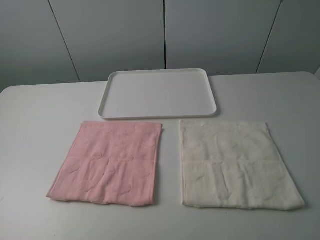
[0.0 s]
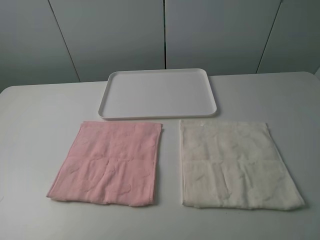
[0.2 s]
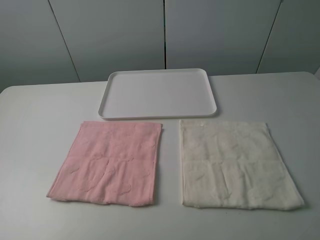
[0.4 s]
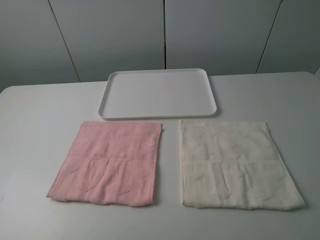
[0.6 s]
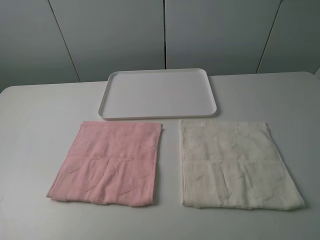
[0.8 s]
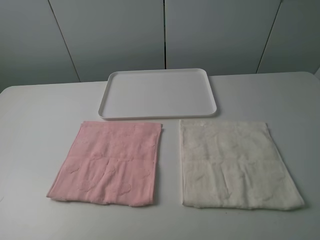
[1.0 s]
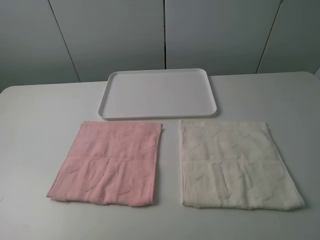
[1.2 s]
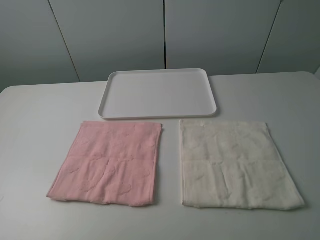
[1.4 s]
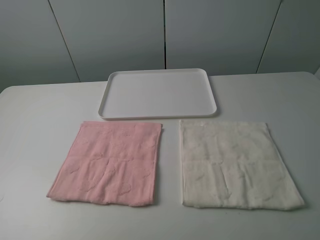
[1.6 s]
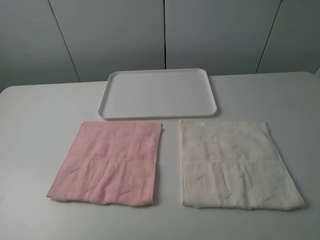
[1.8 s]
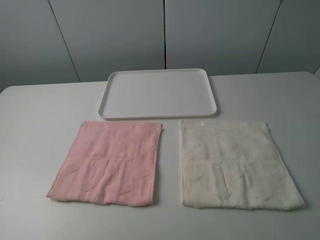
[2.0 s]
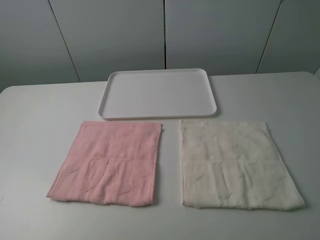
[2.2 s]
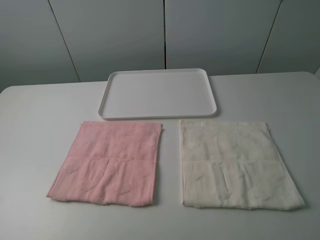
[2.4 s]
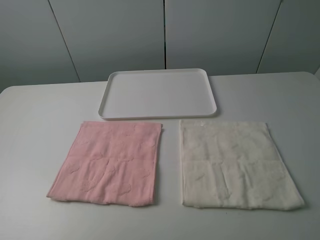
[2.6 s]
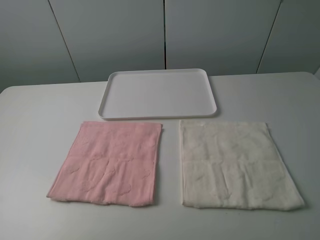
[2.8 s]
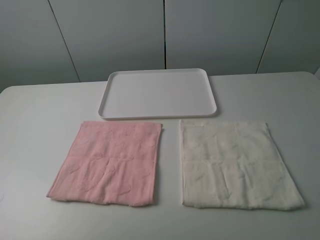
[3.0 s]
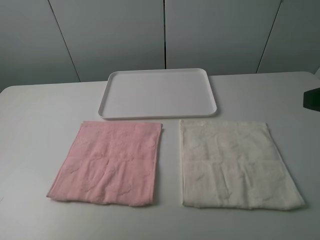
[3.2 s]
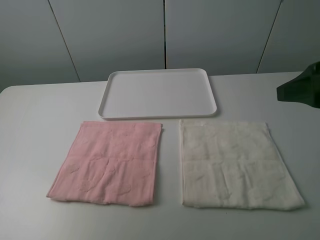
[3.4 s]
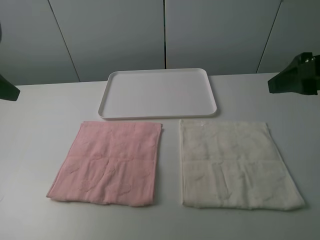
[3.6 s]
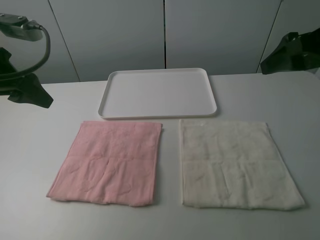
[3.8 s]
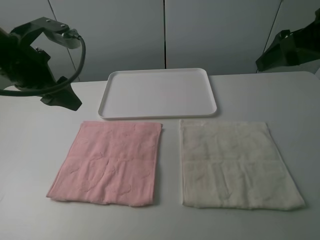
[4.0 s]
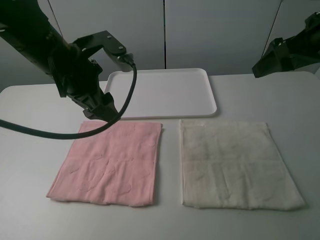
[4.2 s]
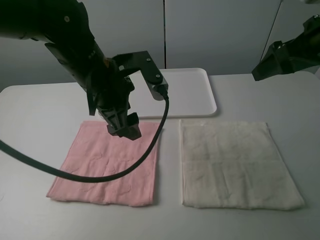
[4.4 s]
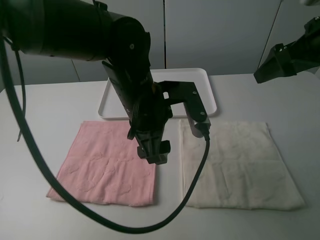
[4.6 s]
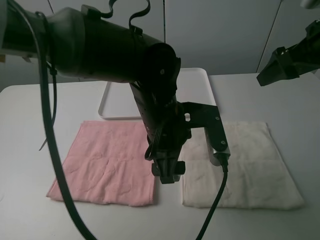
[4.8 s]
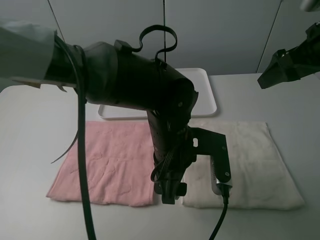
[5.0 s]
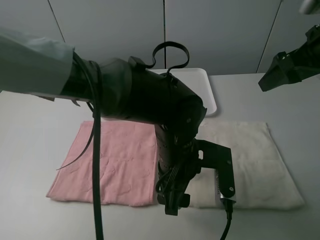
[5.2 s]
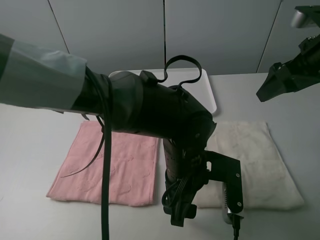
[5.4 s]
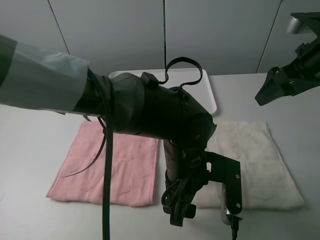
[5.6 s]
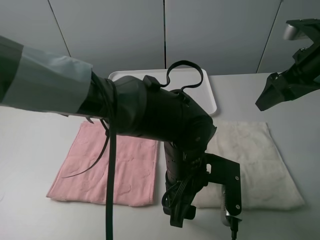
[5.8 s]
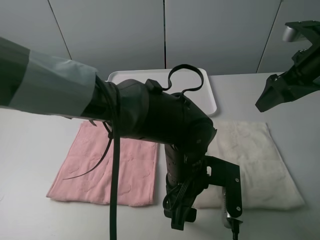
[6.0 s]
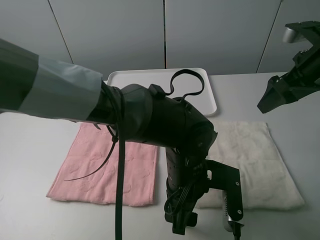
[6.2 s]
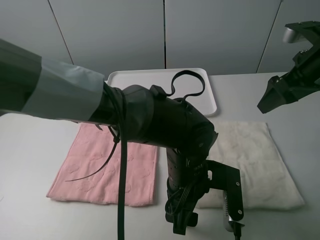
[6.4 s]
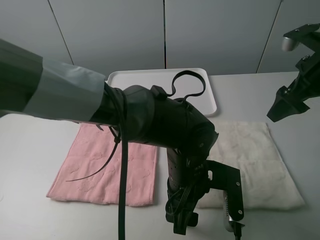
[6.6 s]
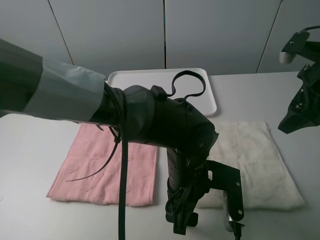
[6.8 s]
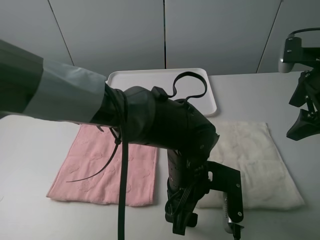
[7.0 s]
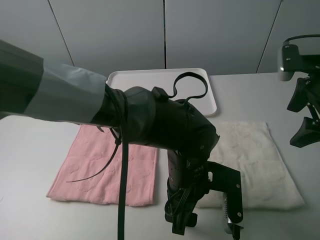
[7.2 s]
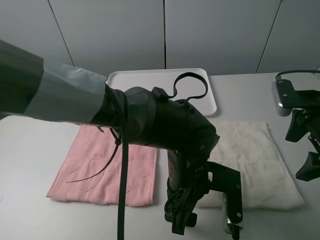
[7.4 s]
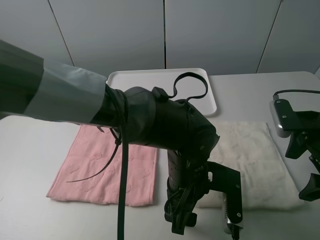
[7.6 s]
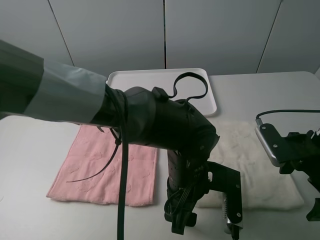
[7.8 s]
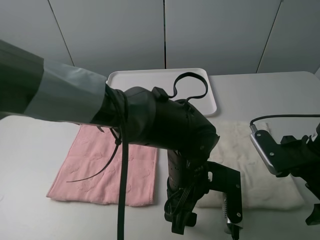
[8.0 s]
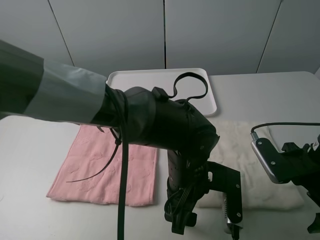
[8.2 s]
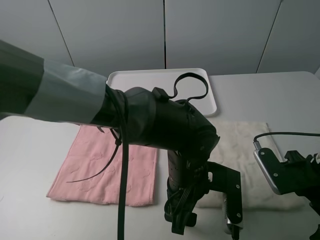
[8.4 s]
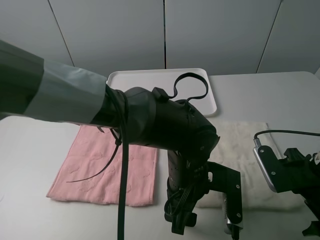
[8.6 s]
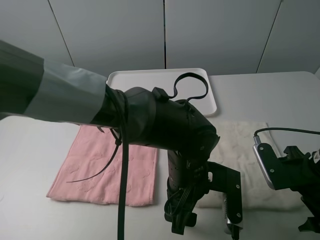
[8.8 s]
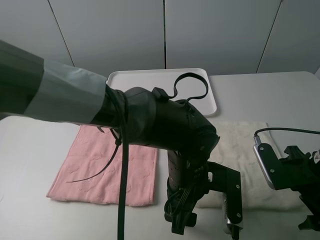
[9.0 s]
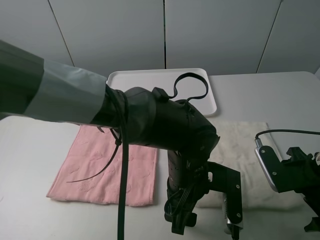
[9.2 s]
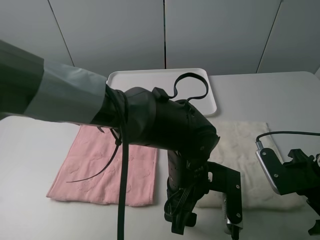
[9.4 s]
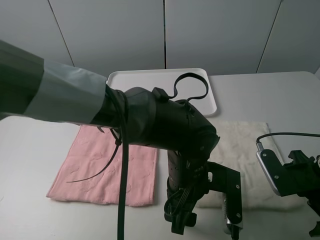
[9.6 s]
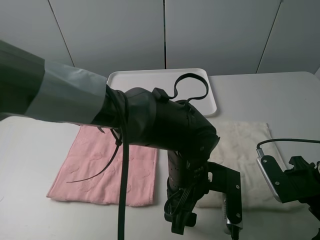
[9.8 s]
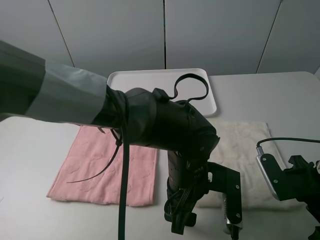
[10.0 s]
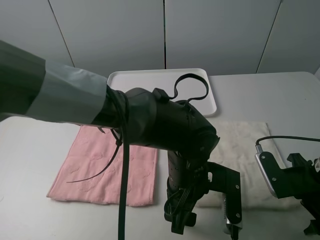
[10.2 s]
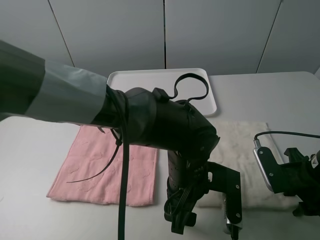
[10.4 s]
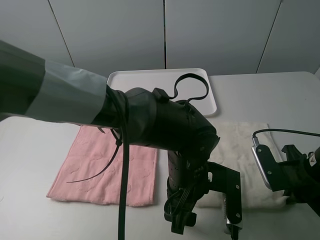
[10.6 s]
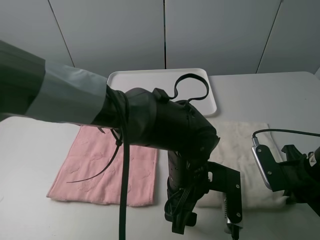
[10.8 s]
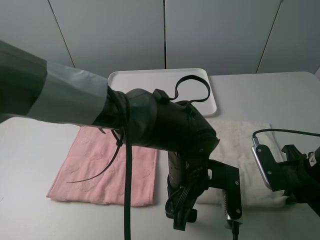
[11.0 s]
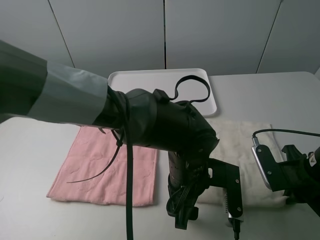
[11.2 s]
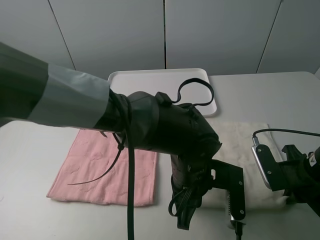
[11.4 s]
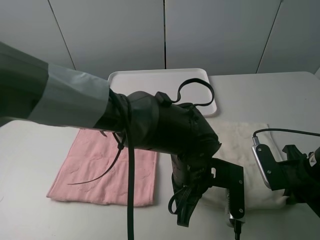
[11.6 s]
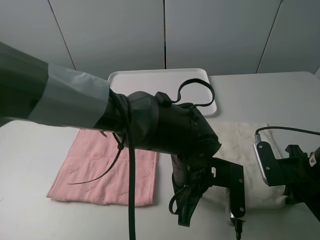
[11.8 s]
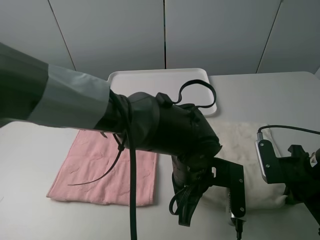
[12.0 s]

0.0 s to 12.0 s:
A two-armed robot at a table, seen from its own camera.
Task of the whole recording: fold one of the towels by two grippers and place it on the tray,then fold another towel by two grippers and place it on the folded towel.
Step, 0.0 to 11.6 s: Grasp the white towel with the left gripper.
0.0 to 1.6 s: Both grippers stay put.
3.0 to 4.4 s: The right gripper shifts some 20 cm forward; the left gripper goes roughly 30 cm to the right and forward.
4.4 to 6.0 s: The left gripper moves to the right, downward and backward, about 20 cm.
6.0 to 7.6 s: The right gripper is displaced downward and backward by some 10 cm.
7.6 to 9.0 s: The right gripper ends up some 5 cm from where it was.
9.0 to 10.4 s: The right gripper closes its fingers.
10.4 to 12.0 s: The left gripper closes its fingers; the right gripper closes its fingers.

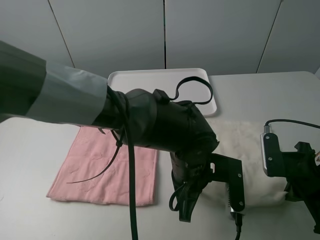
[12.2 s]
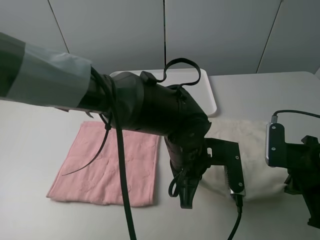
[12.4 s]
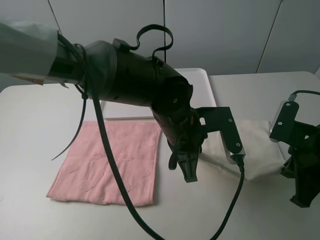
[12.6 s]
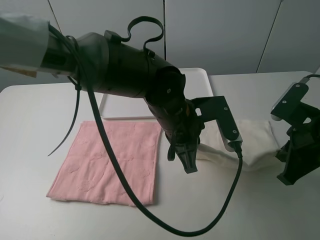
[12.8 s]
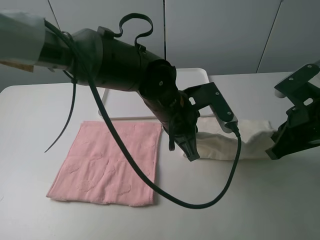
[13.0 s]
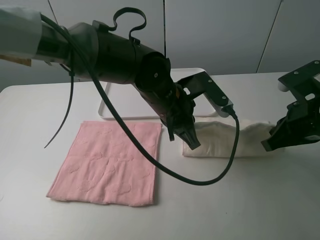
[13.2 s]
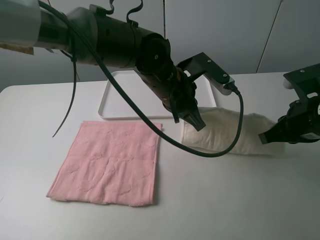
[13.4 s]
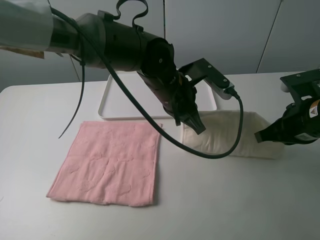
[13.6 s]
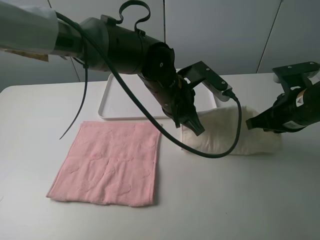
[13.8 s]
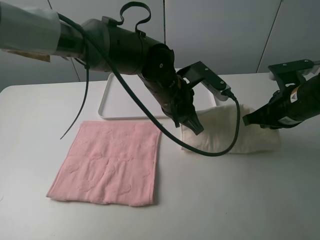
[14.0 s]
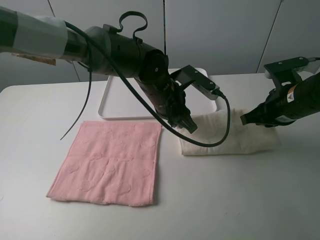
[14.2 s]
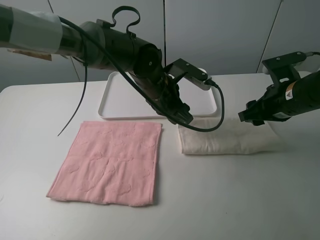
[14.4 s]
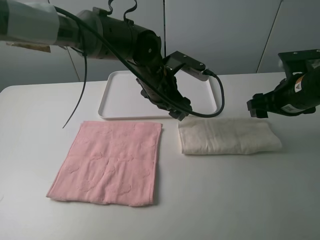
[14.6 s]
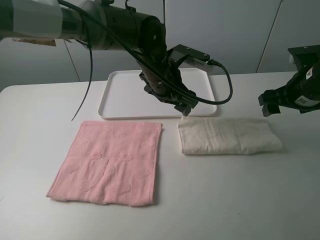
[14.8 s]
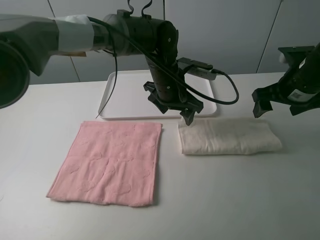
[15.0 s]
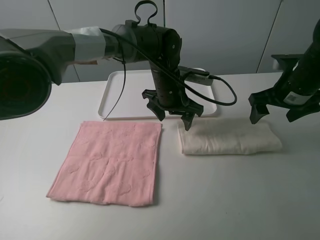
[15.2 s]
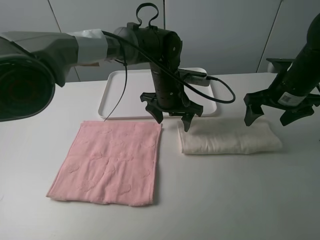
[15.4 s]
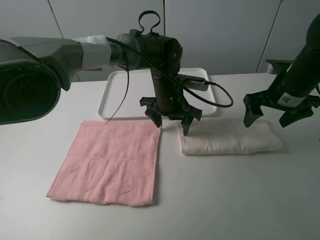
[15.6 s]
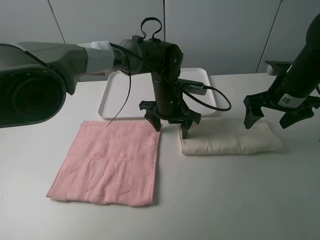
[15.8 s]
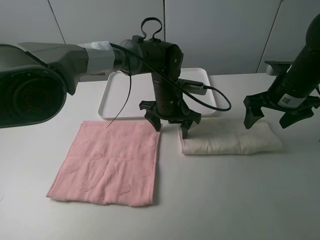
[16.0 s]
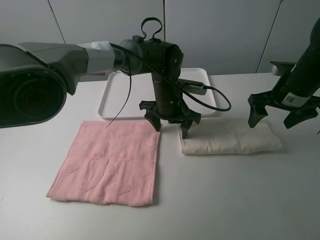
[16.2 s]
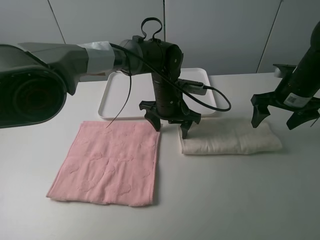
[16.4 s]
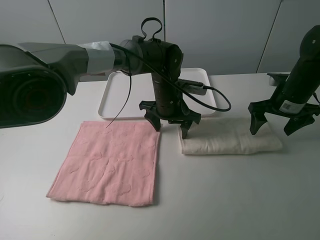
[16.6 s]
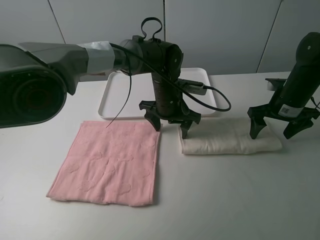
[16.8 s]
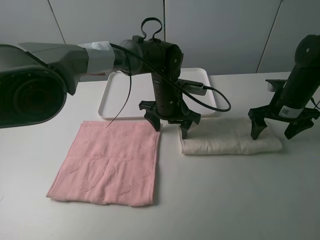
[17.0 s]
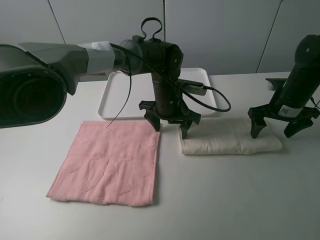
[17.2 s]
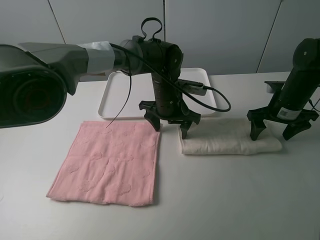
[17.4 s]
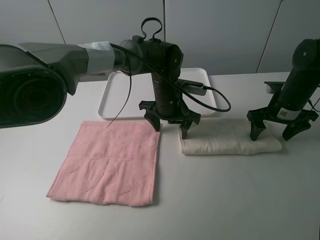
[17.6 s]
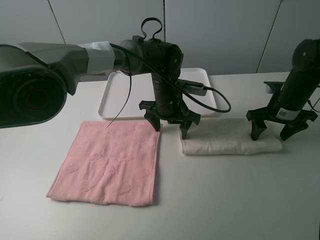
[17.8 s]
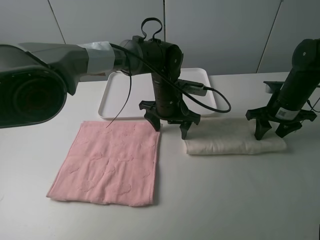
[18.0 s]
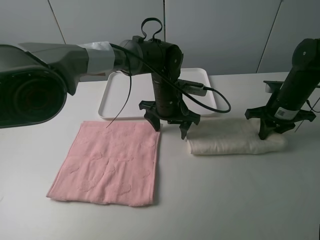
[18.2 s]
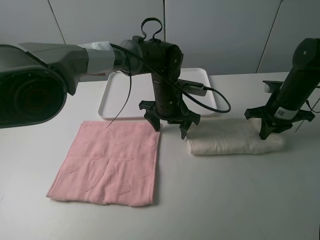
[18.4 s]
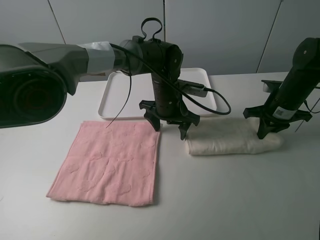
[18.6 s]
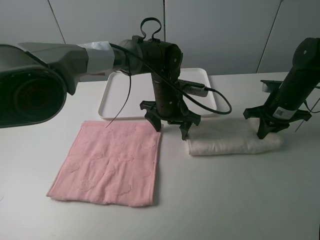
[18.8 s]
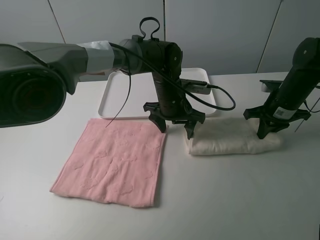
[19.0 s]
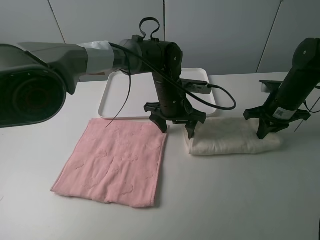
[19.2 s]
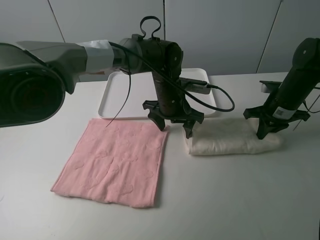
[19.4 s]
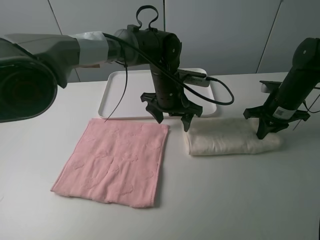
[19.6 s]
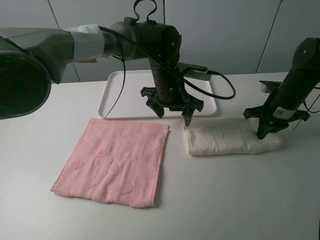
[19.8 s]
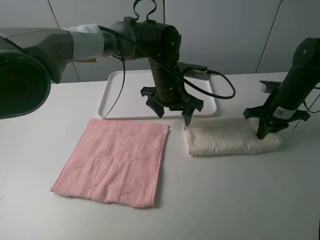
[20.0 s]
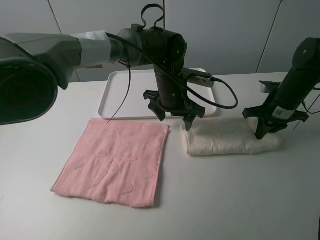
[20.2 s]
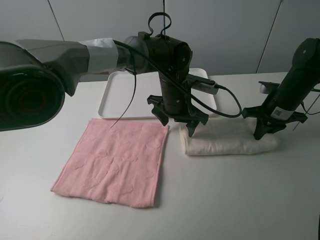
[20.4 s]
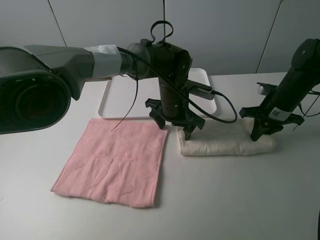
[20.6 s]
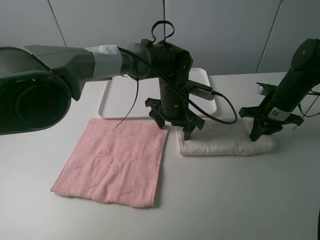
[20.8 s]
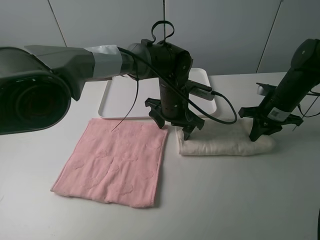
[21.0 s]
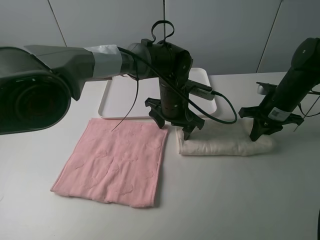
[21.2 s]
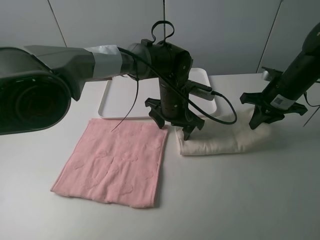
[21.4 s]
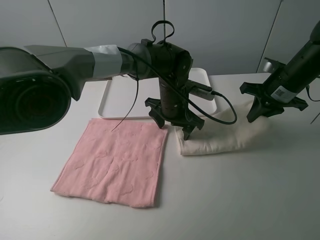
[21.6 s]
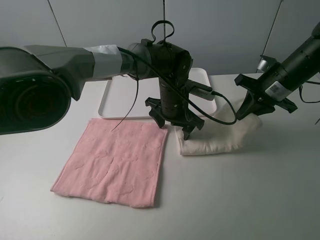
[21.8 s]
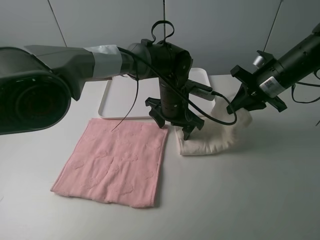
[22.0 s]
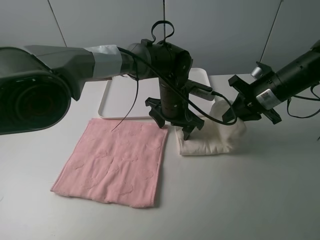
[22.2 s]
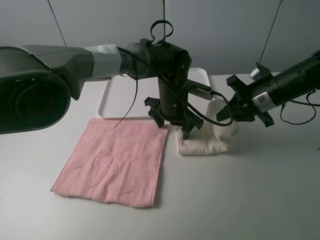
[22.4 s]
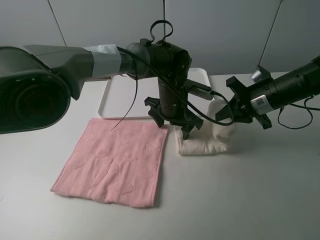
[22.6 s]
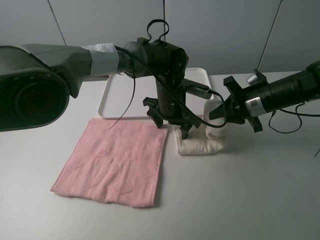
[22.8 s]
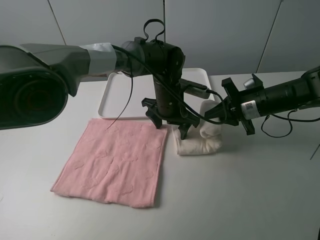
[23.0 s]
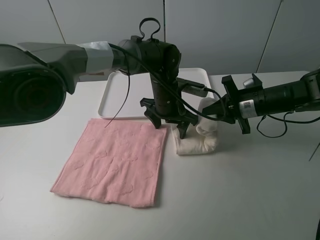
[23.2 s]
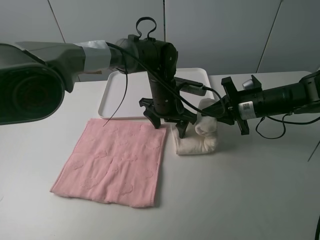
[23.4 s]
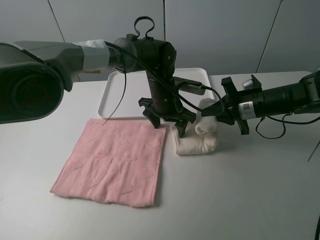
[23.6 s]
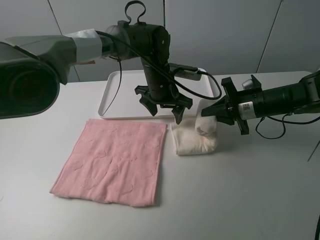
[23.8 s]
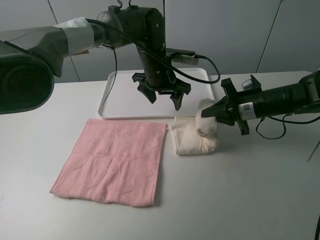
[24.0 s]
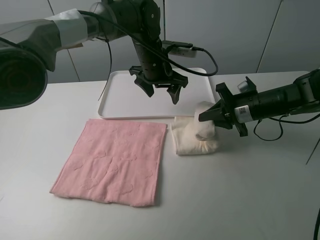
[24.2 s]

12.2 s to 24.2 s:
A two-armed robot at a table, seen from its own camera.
Task of the whole recording: fold one of the towels by two grippers and place it on the tray,then fold another towel by two grippers and place it on the folded towel.
Step, 12.2 to 14.4 s: Fold the white towel upwards with the left gripper.
Step, 14.8 to 16.0 s: Press the white towel with the left gripper.
Step, 16.2 to 18.4 s: Grasp the white towel with the right gripper.
12.2 to 13.8 s: The left gripper travels forward and upward by roughly 15 cm; the right gripper moves forward, approximately 10 cm.
13.8 to 15.2 s: Both grippers travel together forward, some 5 cm. The right gripper opens up. Meanwhile the left gripper opens its fingers.
15.2 to 16.6 s: The right gripper changes place by roughly 5 cm.
16.6 to 18.2 s: The right gripper closes up.
18.2 to 21.2 s: The grippers stay close to where they were, moving slightly.
21.2 to 22.6 s: The right gripper changes place by some 5 cm.
22.6 to 24.2 s: The left gripper goes about 10 cm upward and forward.
